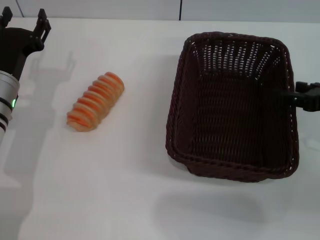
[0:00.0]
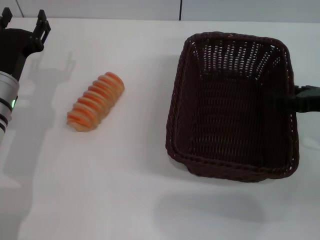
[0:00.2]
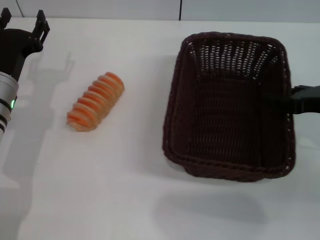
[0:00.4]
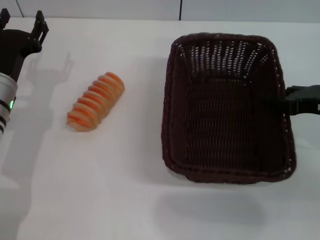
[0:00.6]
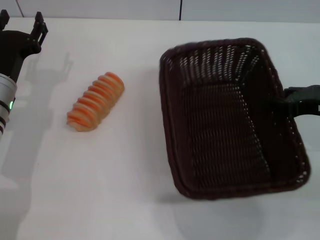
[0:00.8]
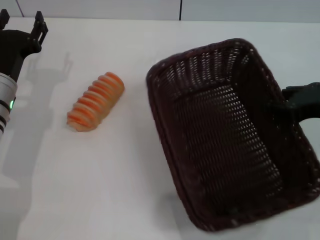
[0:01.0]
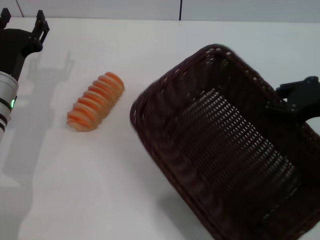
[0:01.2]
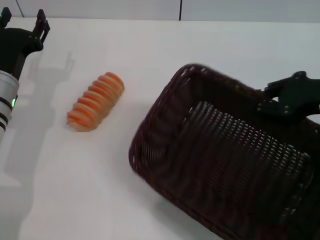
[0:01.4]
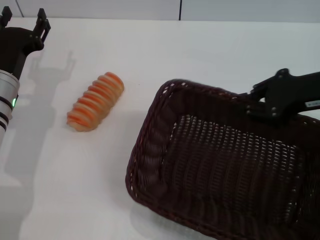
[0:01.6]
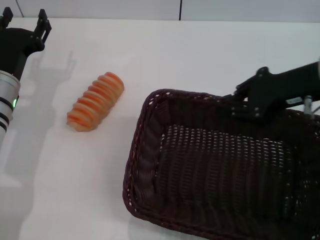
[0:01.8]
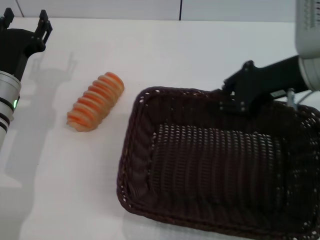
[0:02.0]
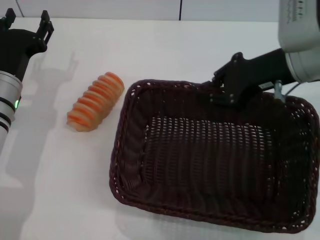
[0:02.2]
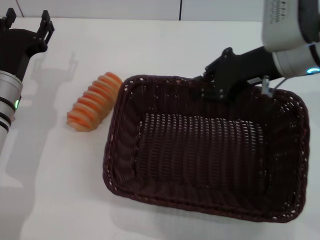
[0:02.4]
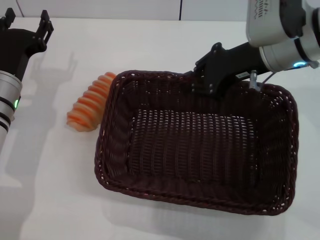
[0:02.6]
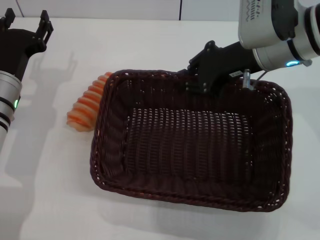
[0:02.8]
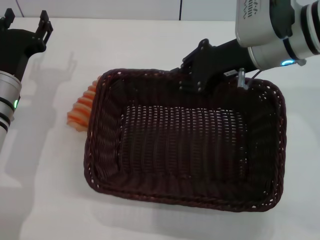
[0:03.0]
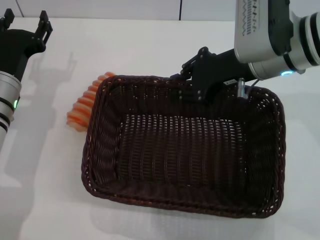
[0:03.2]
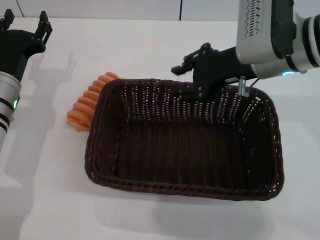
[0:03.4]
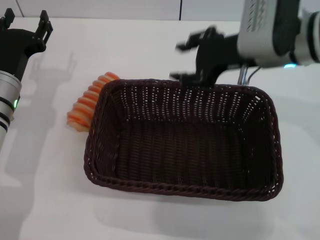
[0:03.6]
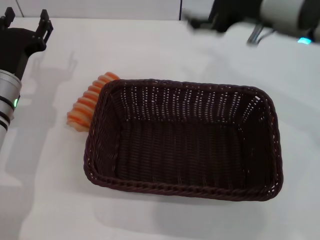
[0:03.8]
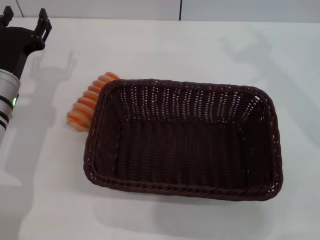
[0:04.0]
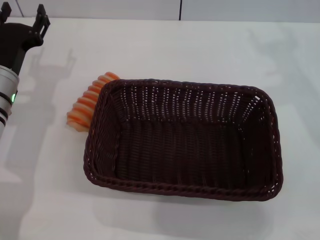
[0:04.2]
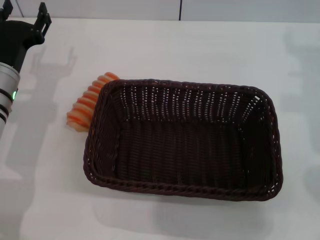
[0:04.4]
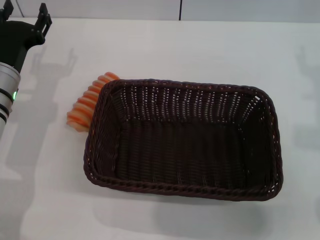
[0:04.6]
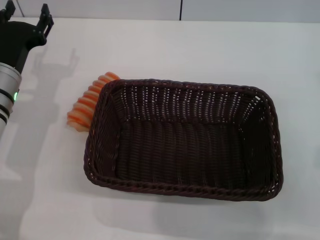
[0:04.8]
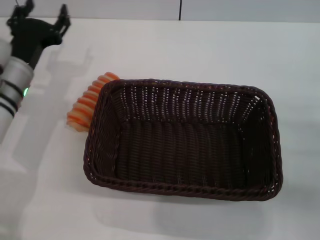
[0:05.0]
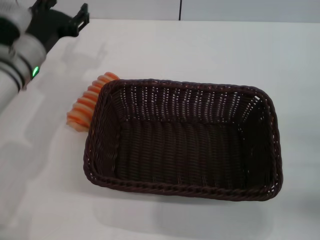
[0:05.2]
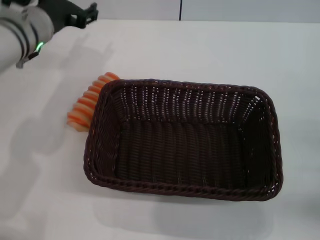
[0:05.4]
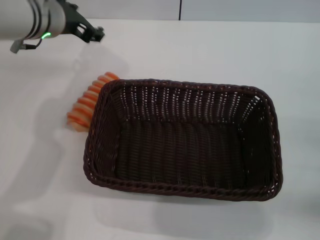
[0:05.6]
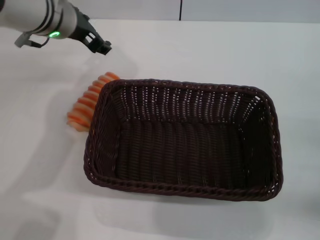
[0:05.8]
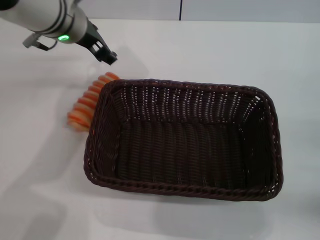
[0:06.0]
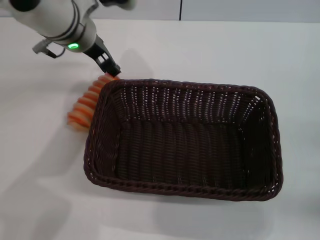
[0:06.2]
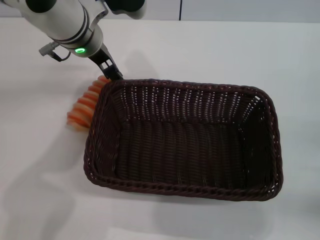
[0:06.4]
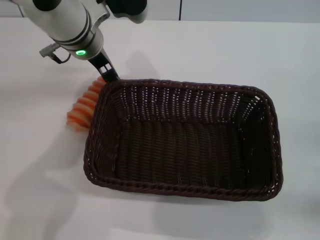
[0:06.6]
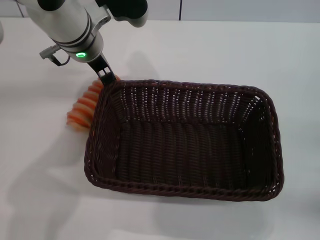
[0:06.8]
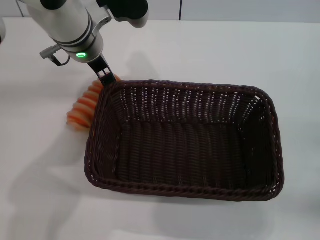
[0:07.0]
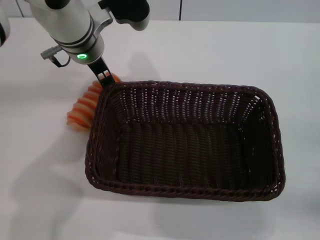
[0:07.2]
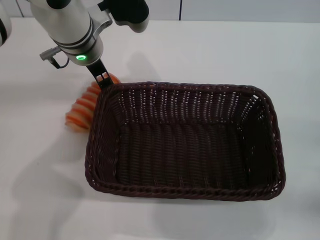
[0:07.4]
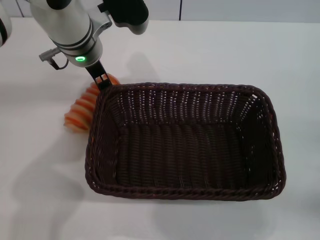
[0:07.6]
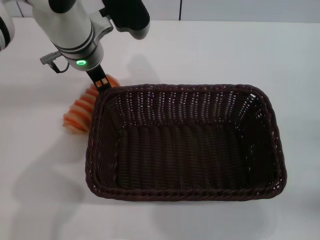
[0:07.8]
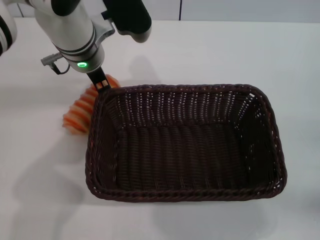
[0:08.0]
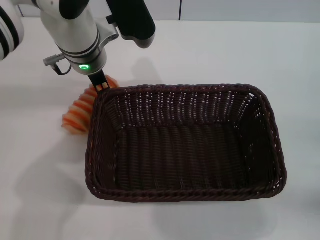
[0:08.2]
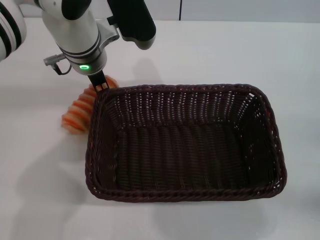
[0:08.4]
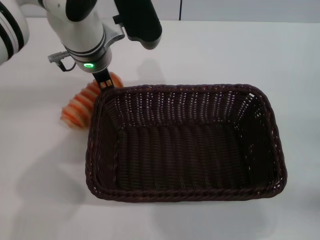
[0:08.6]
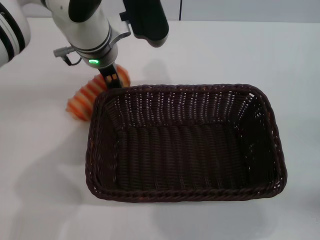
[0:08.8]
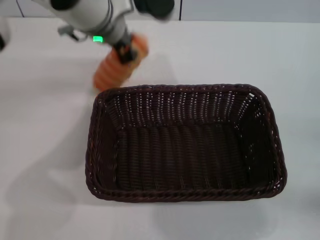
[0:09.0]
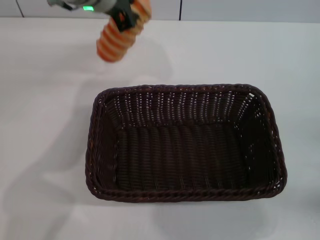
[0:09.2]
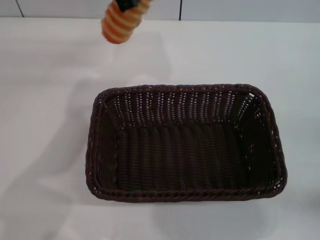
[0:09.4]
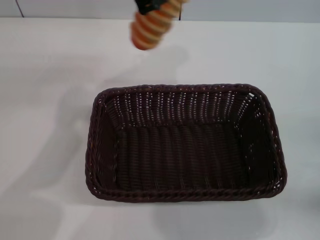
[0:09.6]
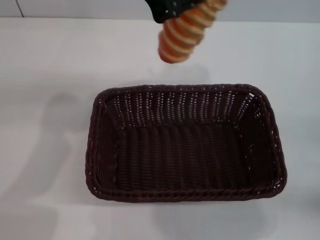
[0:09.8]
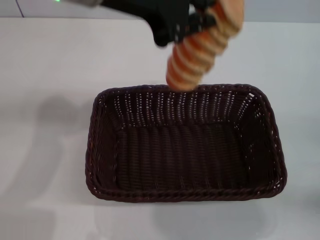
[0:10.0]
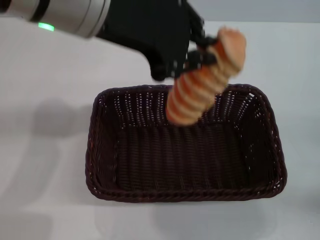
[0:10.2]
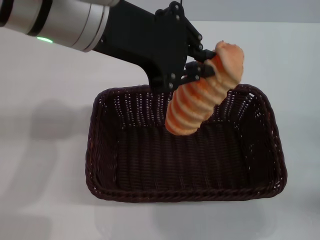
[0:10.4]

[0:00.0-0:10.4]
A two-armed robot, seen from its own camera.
Step, 0:01.0 to 0:03.4: Place the dark basket in the center of view with the right gripper.
Step, 0:03.6 to 0:09.2: Pick up the long bread with the left gripper.
0:00.0 to 0:01.4: The right gripper heads upward, covering approximately 5 cm, and closes.
0:01.4 to 0:03.0: The right gripper is displaced to the left and forward by some 15 cm.
0:03.0 to 0:04.4: The right gripper travels to the right by some 10 cm, and opens.
0:04.4 to 0:06.0: The left gripper is displaced upward, to the right and forward by roughly 20 cm, while the right gripper goes about 25 cm downward, backward and to the right.
0:06.0 to 0:07.4: There are only small adjustments of the grippers.
0:07.4 to 0:09.0: The left gripper closes its fingers.
0:09.0 to 0:10.4: The left gripper is displaced backward and upward by roughly 15 cm.

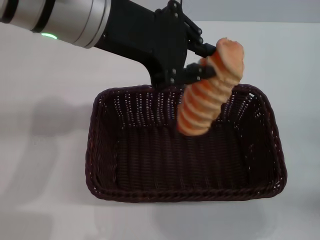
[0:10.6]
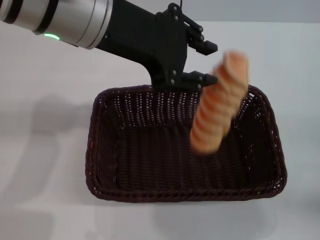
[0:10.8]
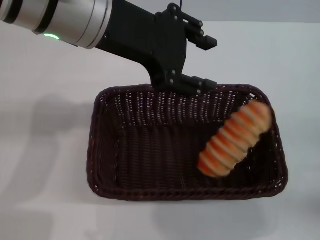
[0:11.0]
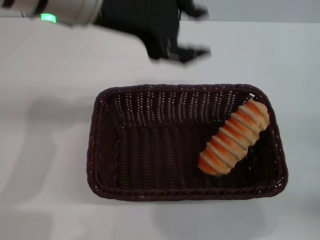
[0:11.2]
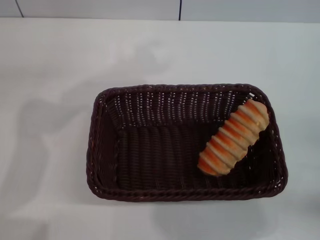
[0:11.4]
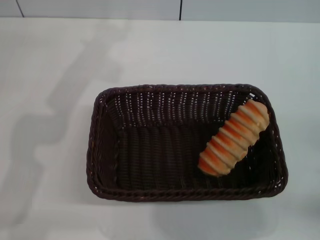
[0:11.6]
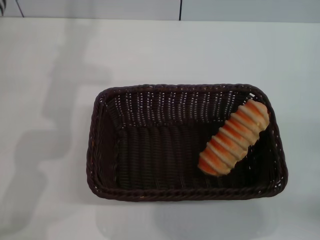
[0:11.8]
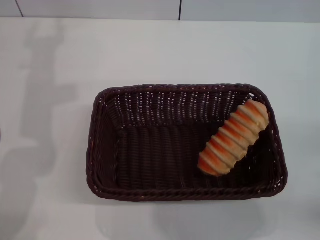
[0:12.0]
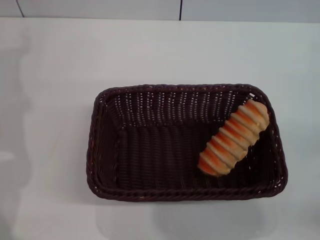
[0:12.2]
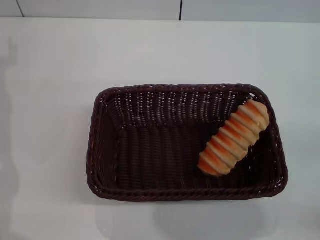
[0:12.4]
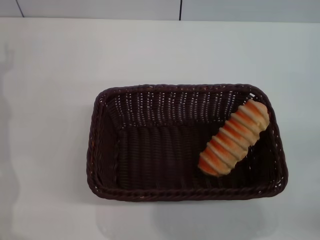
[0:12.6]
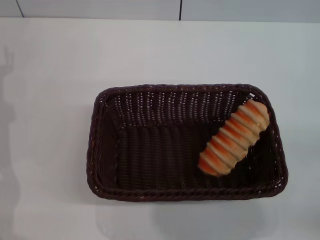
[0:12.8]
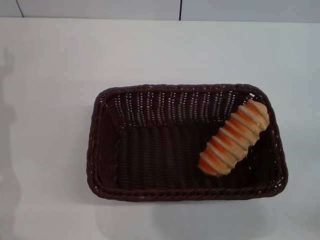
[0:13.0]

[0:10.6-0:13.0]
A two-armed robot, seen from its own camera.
0:10.6 to 0:11.8: The left gripper moves to the left, forward and downward, some 15 cm, and opens up.
